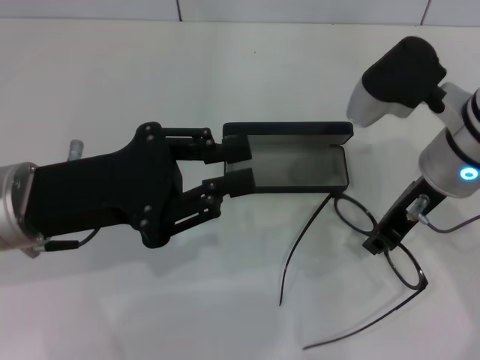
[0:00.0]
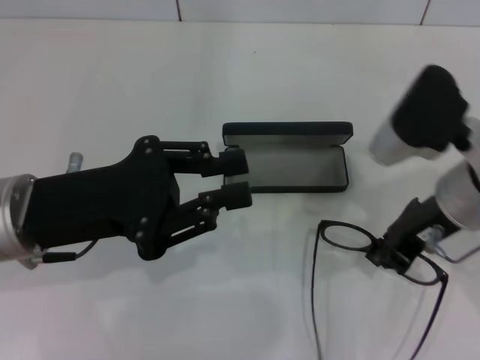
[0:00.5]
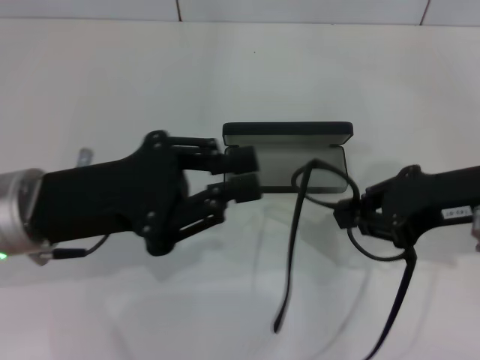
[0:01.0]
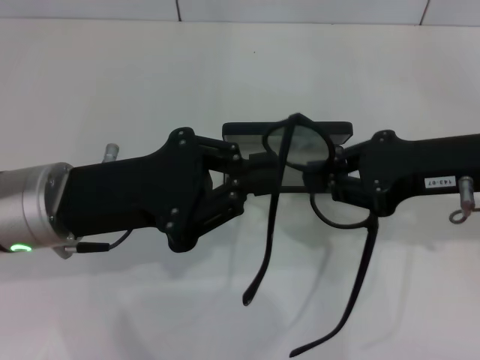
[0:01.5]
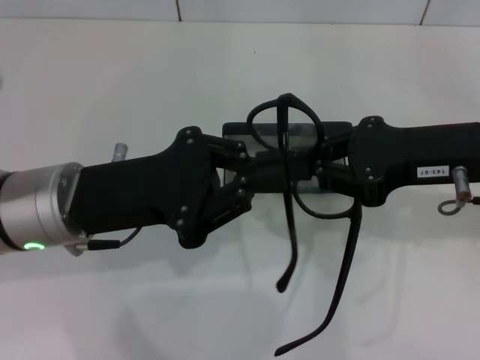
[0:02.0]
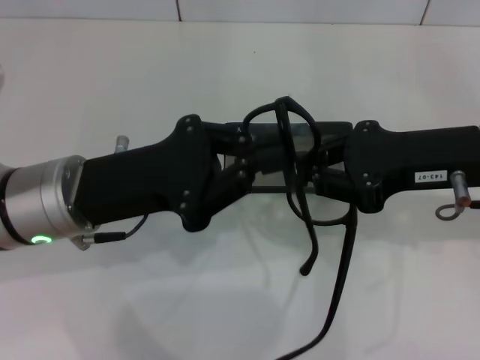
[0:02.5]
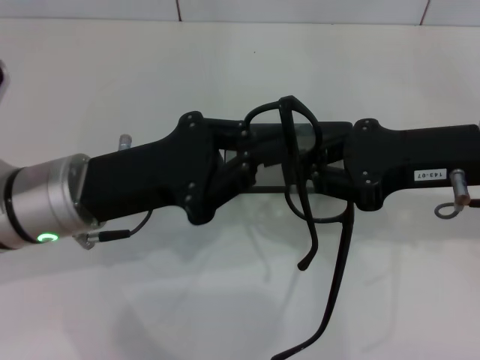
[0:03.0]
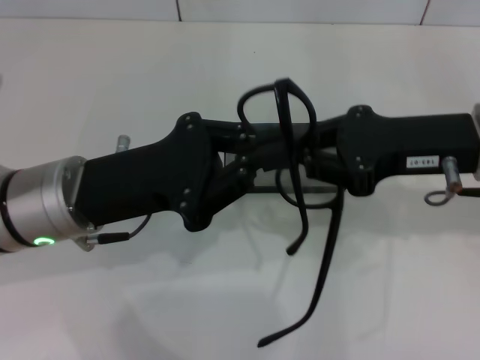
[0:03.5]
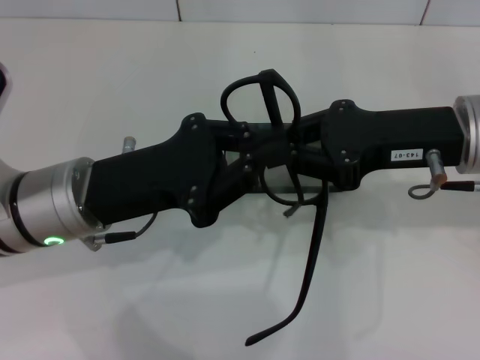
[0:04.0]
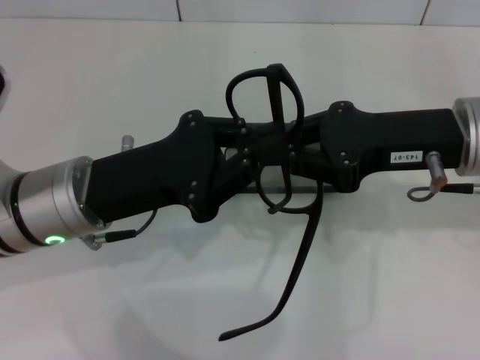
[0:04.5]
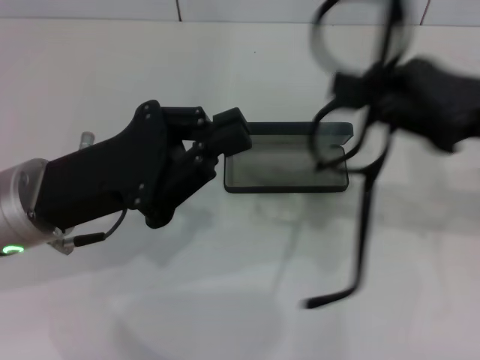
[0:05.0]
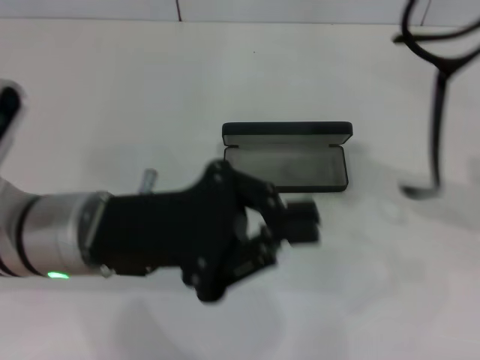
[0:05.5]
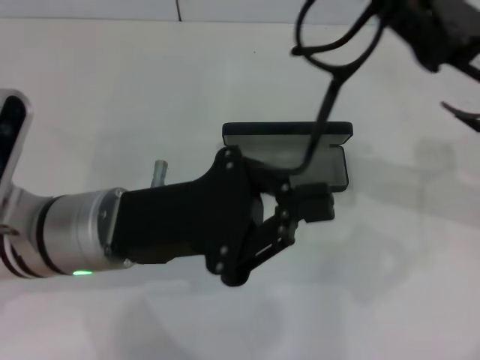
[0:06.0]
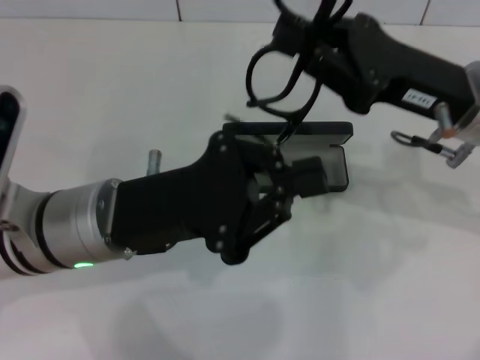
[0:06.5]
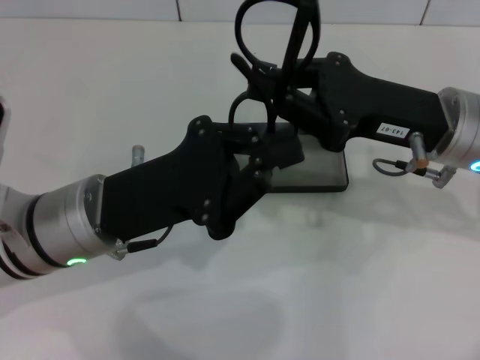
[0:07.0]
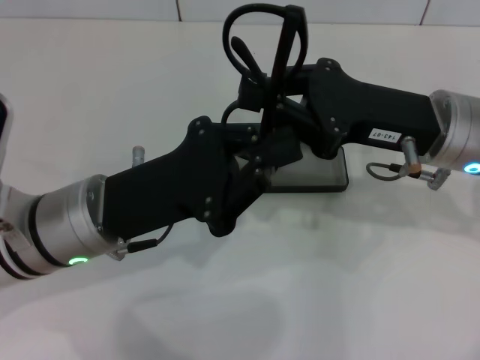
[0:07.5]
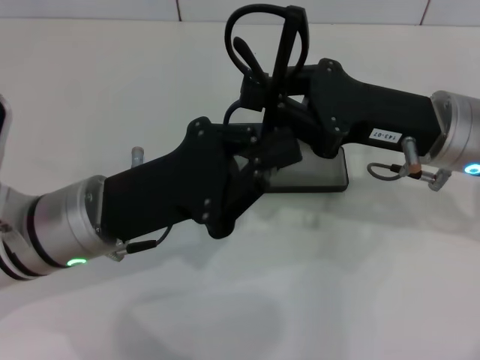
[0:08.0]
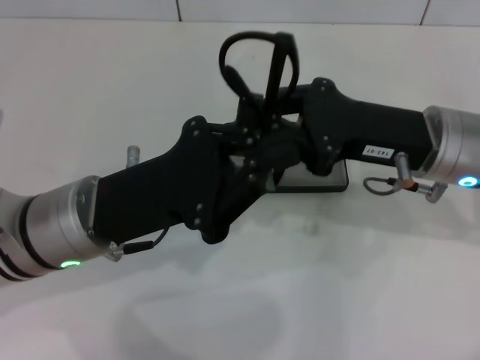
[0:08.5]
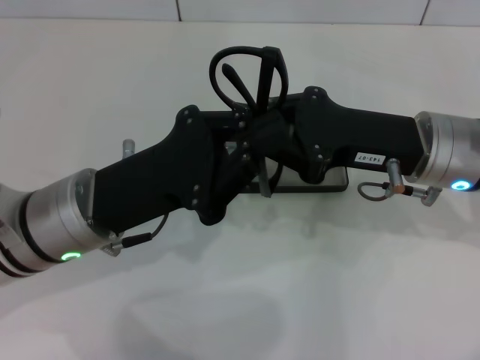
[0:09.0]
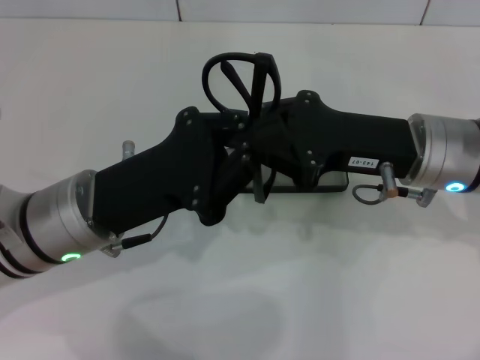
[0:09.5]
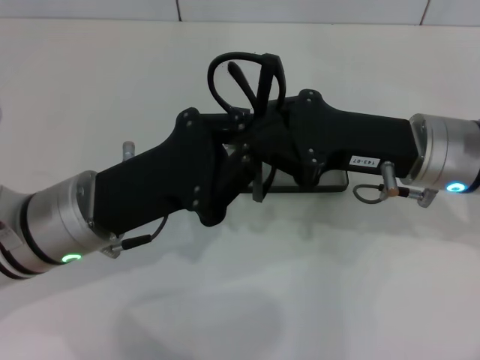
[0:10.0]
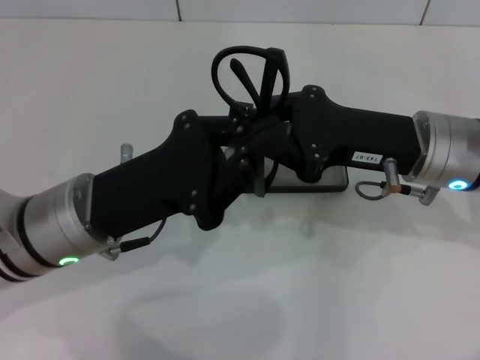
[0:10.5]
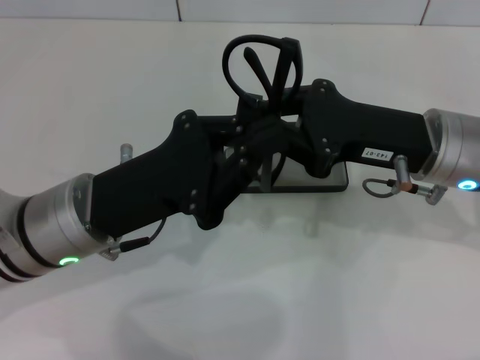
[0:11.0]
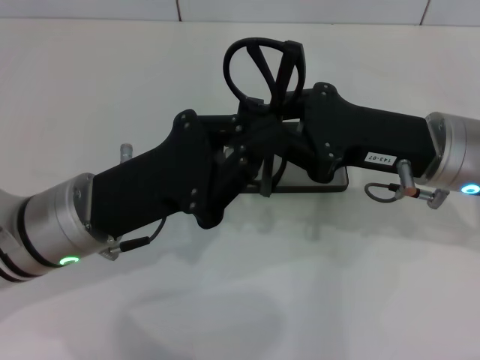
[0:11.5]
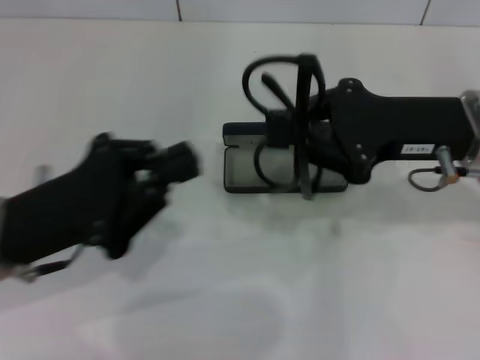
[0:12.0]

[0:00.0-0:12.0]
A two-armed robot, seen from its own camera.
Step, 0:00.5 to 0:09.5: Fold the frame with your left hand.
0:00.0 to 0:02.0: The right gripper is displaced to the right by approximately 5 cm, and closes up.
0:02.0 to 0:04.0: The grippers move only a little.
0:04.0 to 0:06.0: The right gripper travels to the right and back again, some 10 cm each way.
0:06.0 to 0:08.0: The right gripper shifts by roughly 5 cm.
0:08.0 to 0:10.0: The grippers make only small movements.
0:10.0 to 0:12.0: The left gripper travels to the left by some 5 cm.

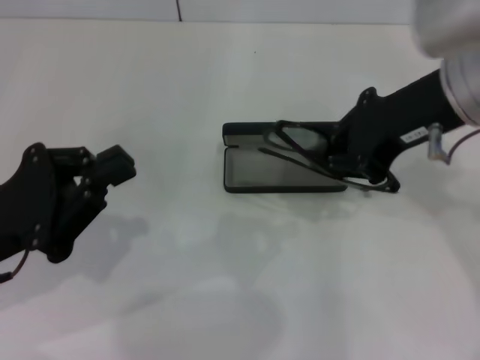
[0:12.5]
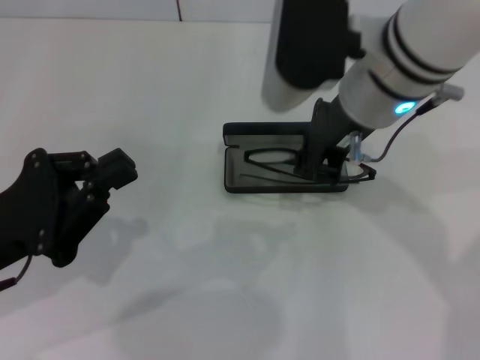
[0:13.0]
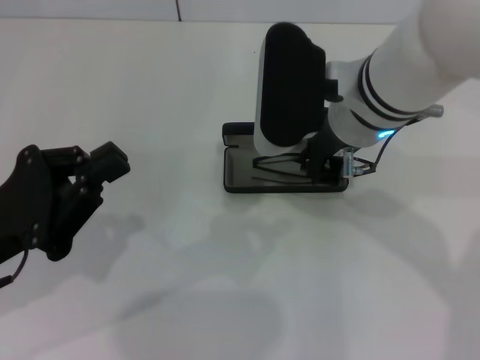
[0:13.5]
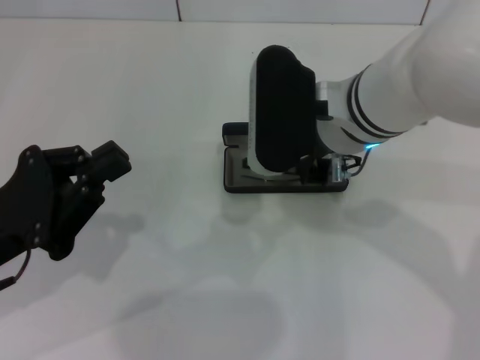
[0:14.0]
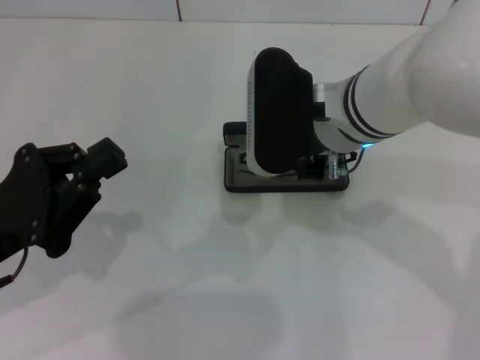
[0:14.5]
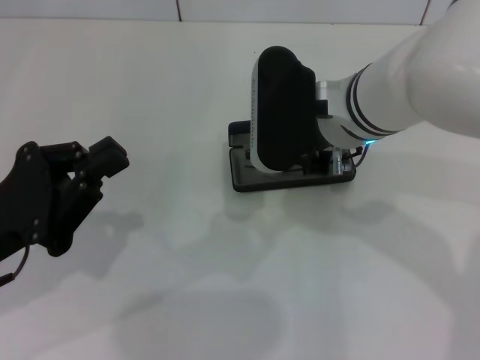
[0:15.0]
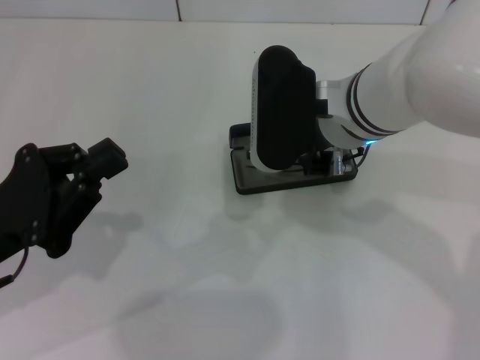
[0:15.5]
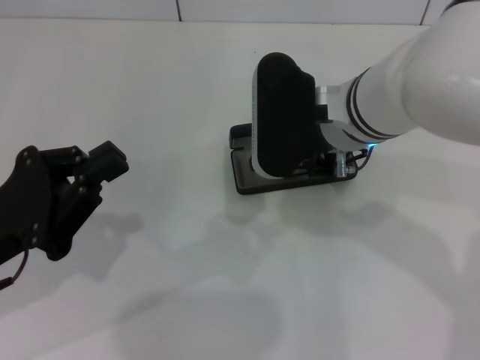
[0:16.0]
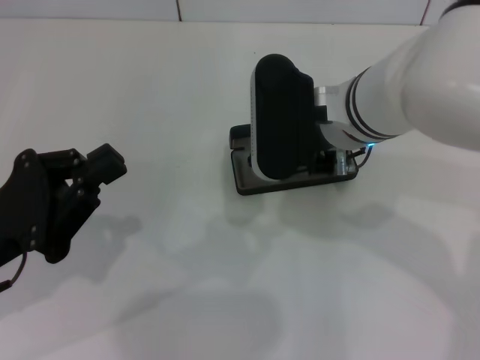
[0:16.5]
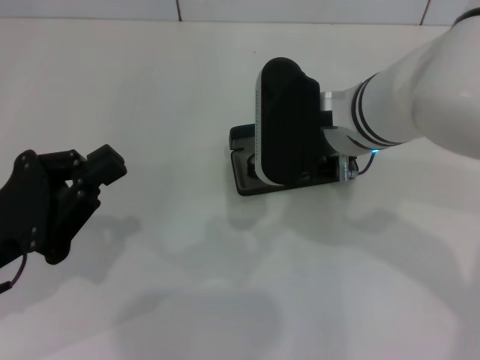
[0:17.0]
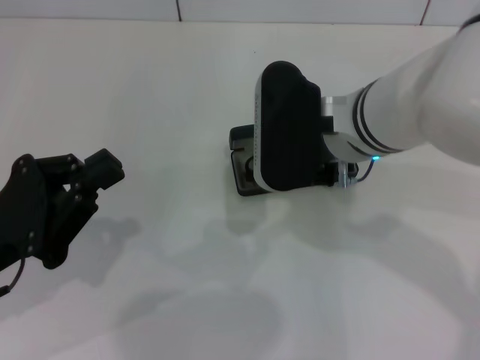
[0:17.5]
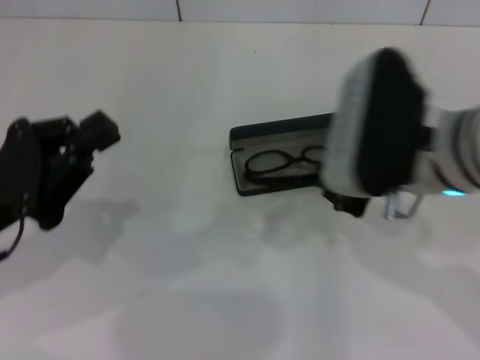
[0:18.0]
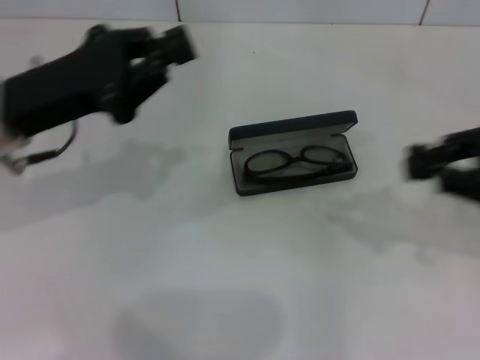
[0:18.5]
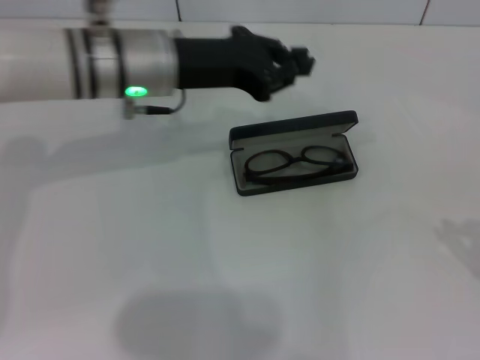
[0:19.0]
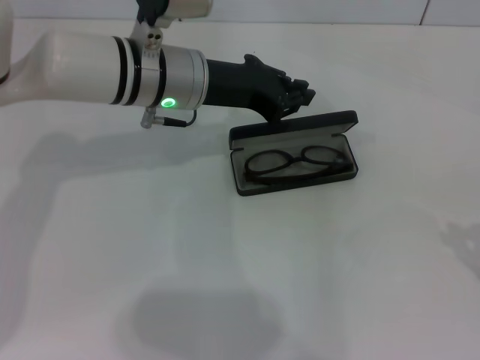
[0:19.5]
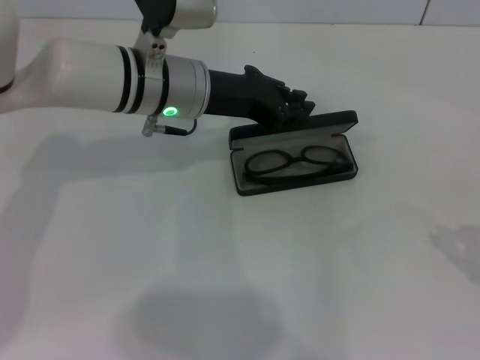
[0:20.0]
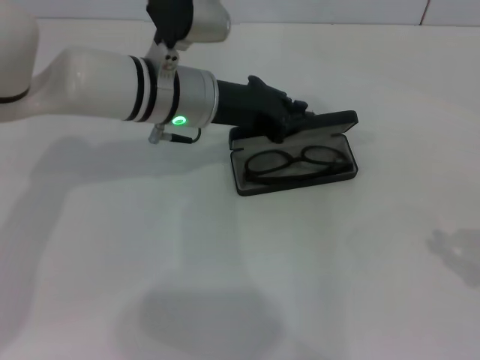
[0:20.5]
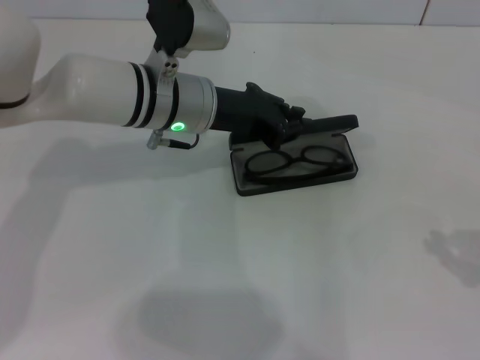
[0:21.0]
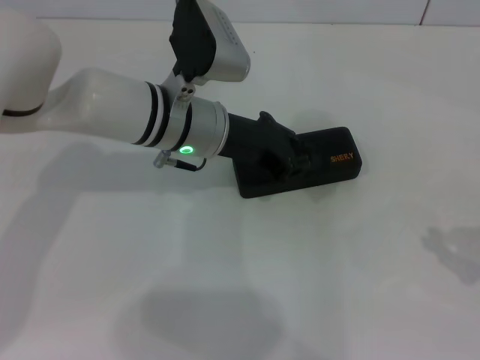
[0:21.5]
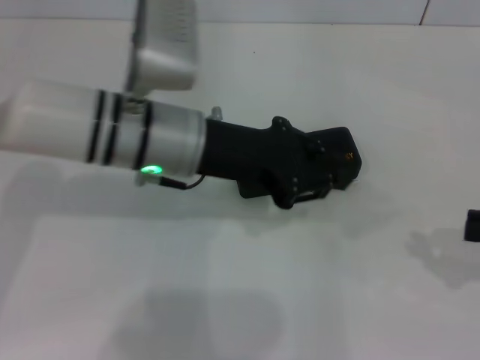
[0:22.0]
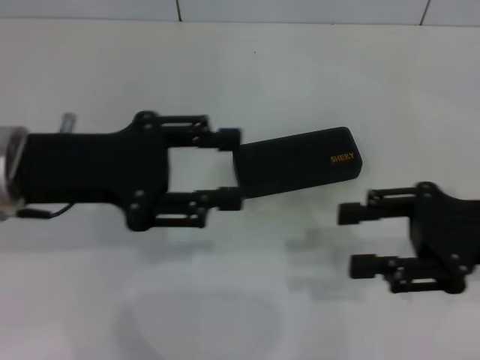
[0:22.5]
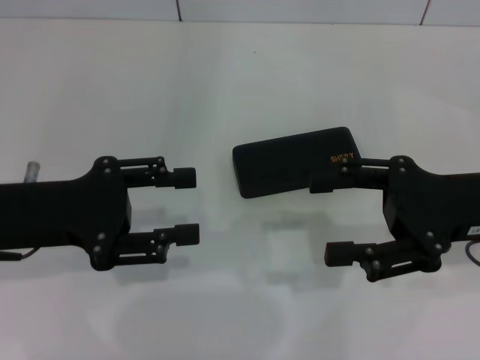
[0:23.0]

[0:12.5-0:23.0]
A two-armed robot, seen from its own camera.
Step, 0:12.5 to 0:17.0: Put the glasses into the case with your right hand.
Step, 0:18.0 to 0:21.5: Close the glasses case with your left hand.
0:12.5 to 0:14.5: The right gripper moves to the left and downward, about 10 cm.
0:14.5 to 0:16.5: The grippers make only small movements.
0:16.5 to 0:19.0: The right gripper goes roughly 35 cm to the right and backward. The left gripper travels forward and to the right by about 25 cm.
0:19.0 to 0:21.0: The left gripper shifts by some 5 cm.
0:21.0 to 0:23.0: The right gripper travels to the left by about 15 cm, and opens up; the left gripper heads to the left and backward, covering roughly 20 cm, and opens its fingers.

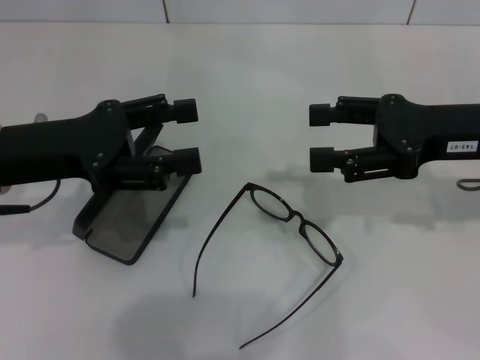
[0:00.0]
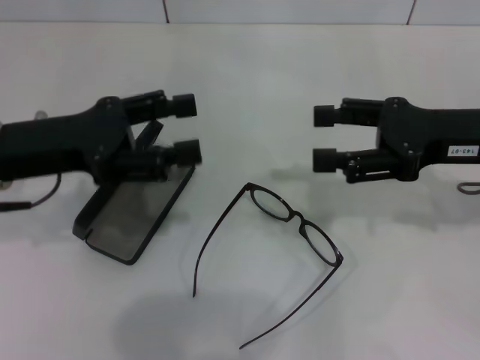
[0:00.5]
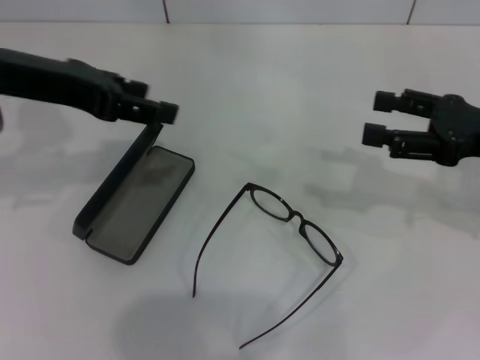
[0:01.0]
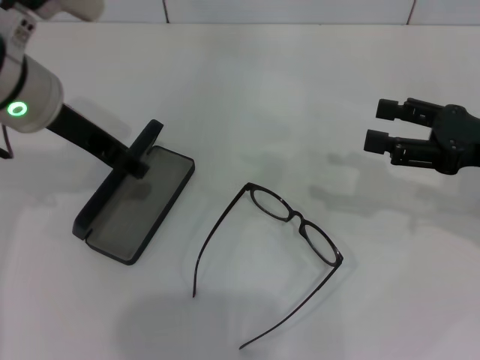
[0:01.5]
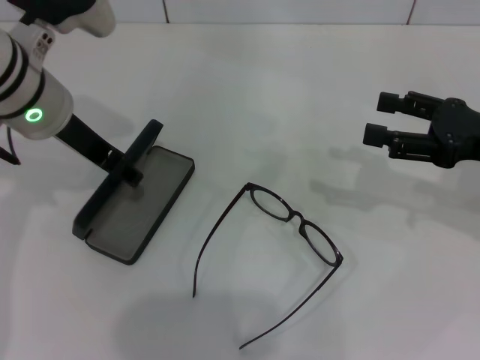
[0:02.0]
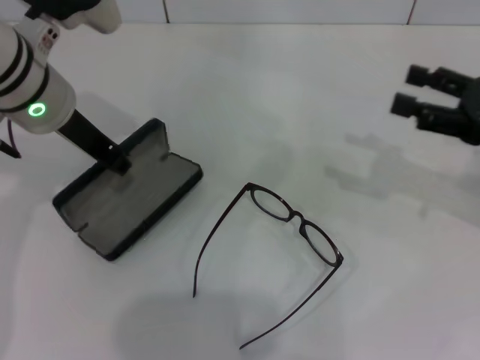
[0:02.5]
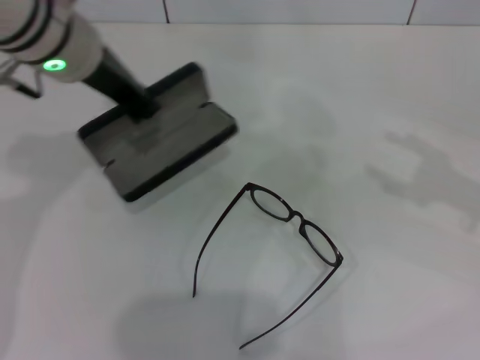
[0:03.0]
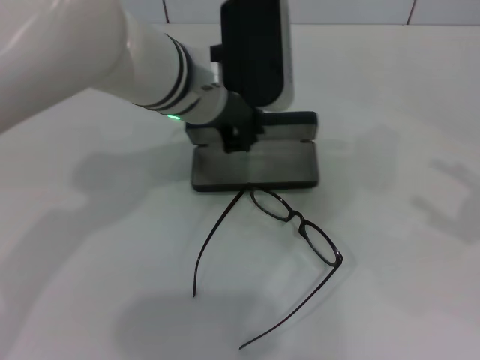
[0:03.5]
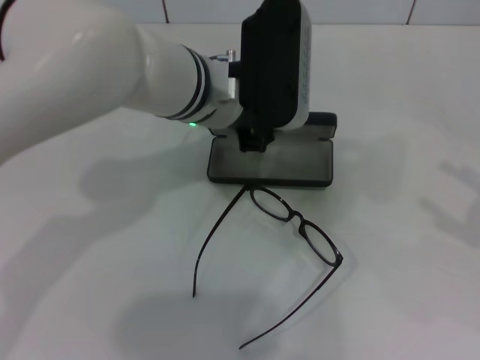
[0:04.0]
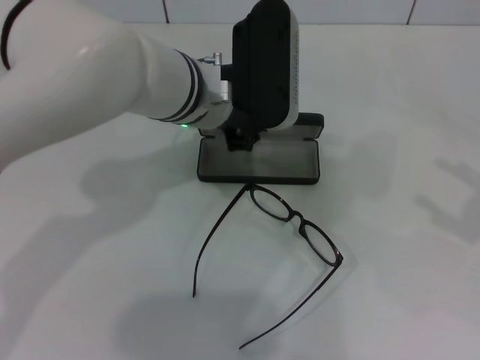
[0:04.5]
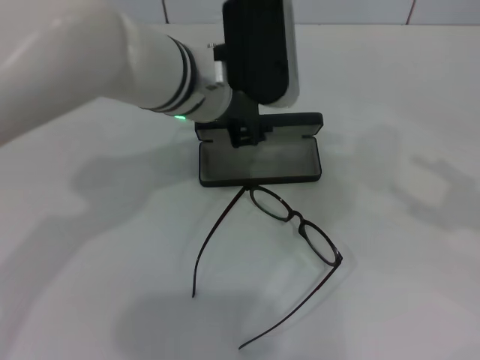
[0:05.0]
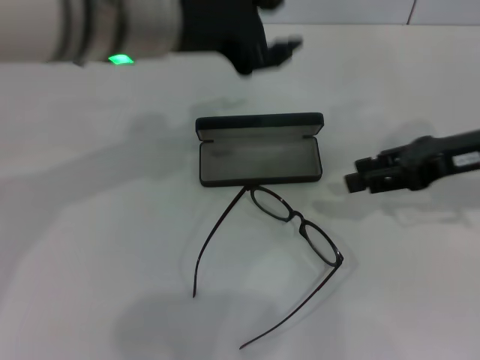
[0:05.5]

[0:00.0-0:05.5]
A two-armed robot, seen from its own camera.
Step, 0:00.0 to 0:02.0: Grab the glasses case with your left hand.
Step, 0:03.0 to 0:04.5: Place the glasses case in the center of the table with your left hand.
0:00.0 to 0:02.0: The left gripper travels forward and to the right by approximately 10 cm. Meanwhile the right gripper shifts approximately 5 cm to the right.
0:02.0 to 0:03.5: The right gripper moves to the right and backward, approximately 15 cm; the left gripper is displaced to the right by roughly 10 cm, and closes.
0:03.5 to 0:05.5: The left gripper goes roughly 10 cm upward, and opens. The right gripper travels to the left and forward by about 20 cm.
